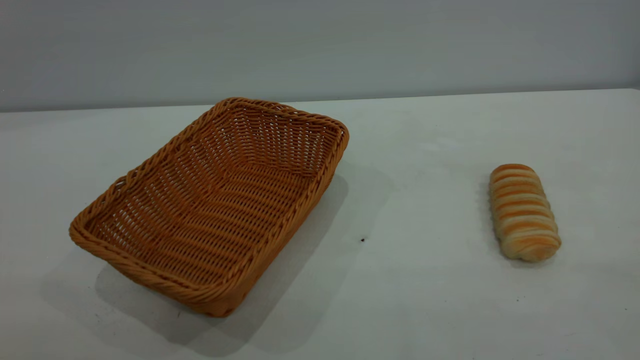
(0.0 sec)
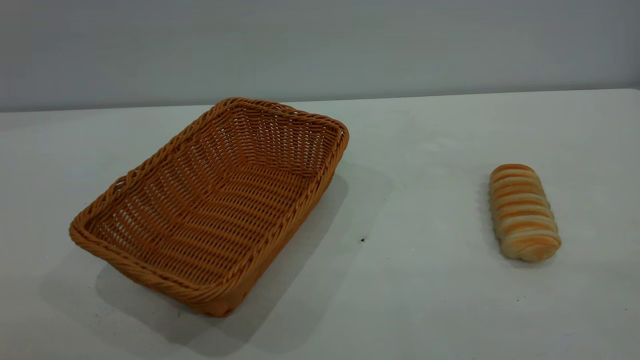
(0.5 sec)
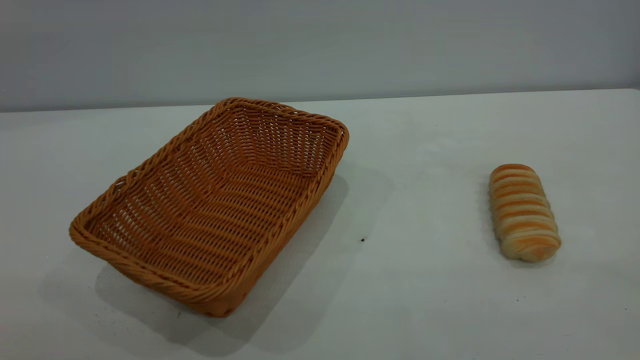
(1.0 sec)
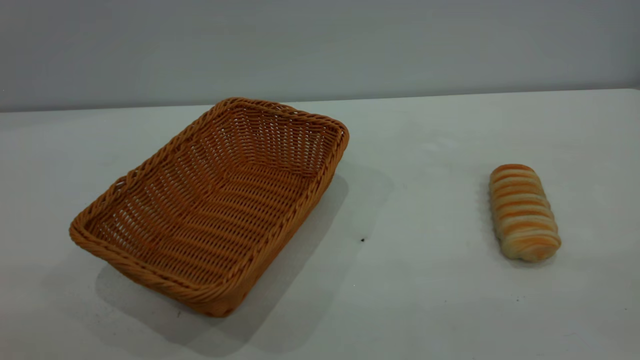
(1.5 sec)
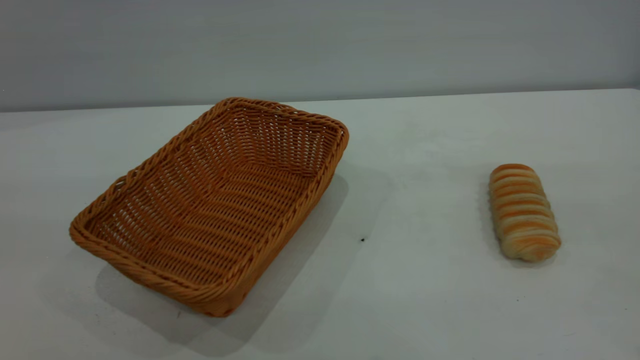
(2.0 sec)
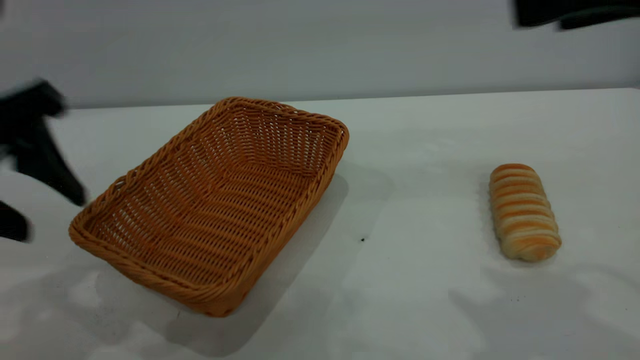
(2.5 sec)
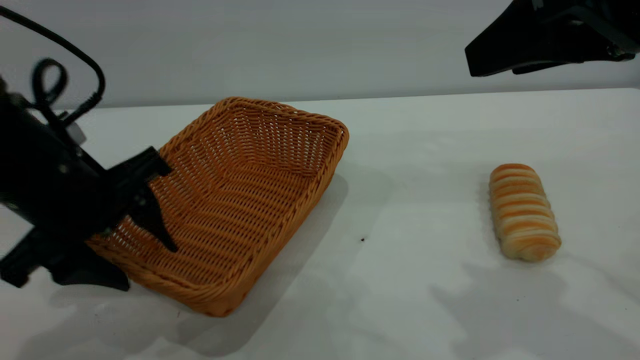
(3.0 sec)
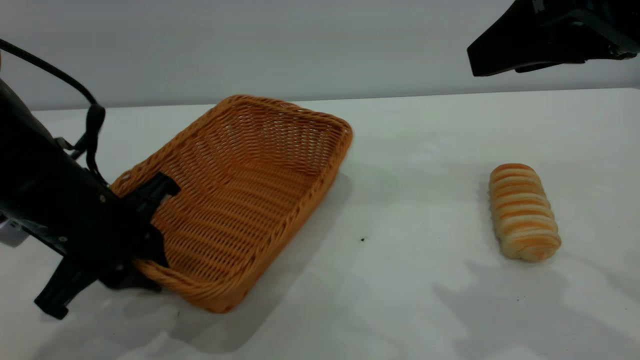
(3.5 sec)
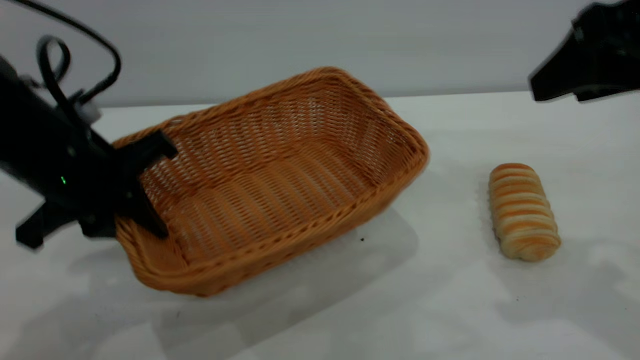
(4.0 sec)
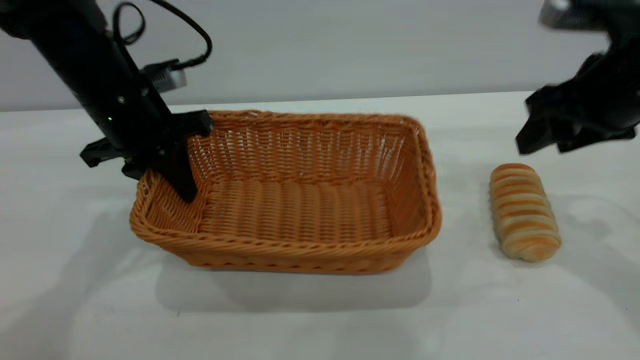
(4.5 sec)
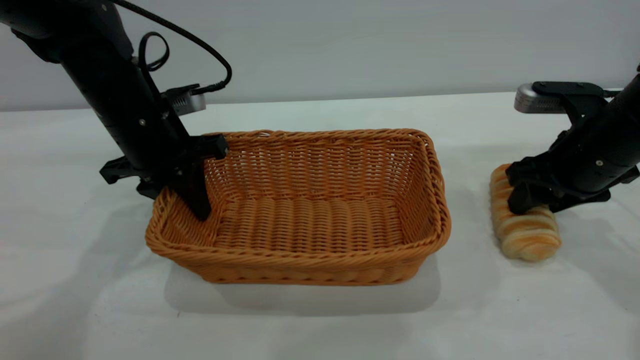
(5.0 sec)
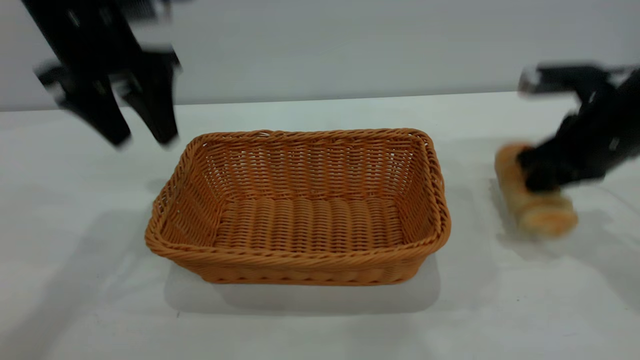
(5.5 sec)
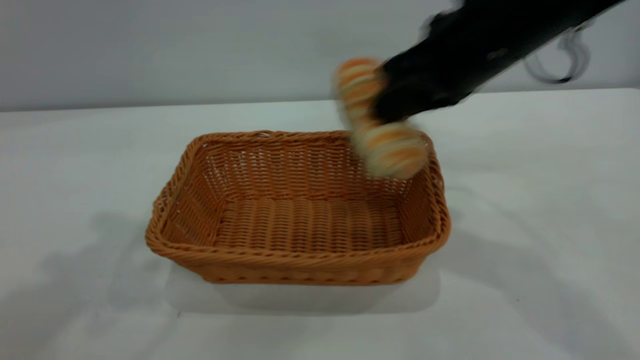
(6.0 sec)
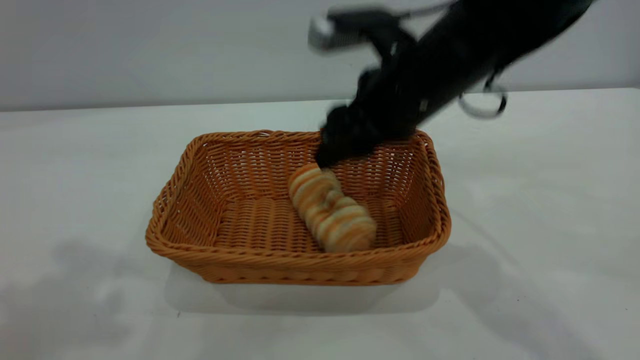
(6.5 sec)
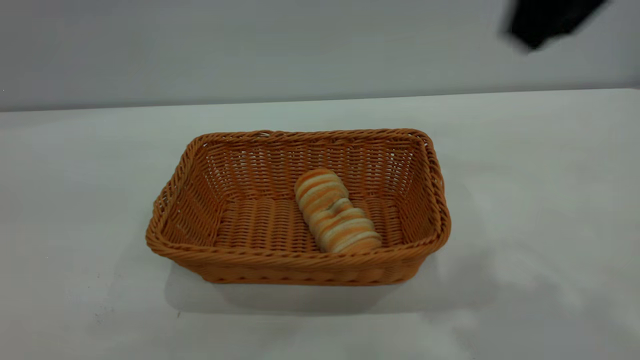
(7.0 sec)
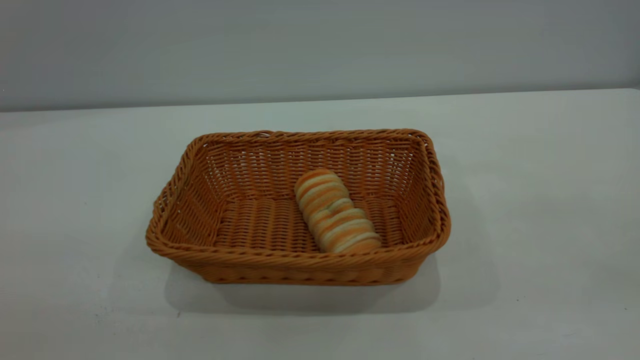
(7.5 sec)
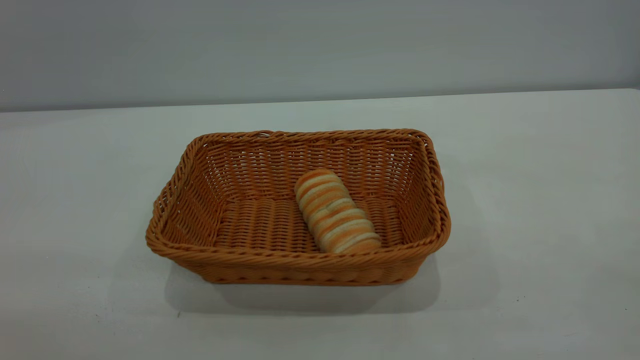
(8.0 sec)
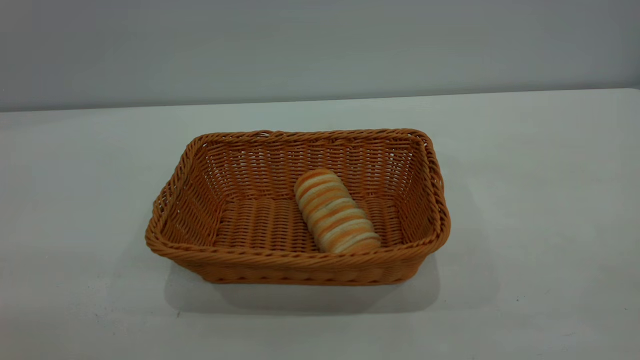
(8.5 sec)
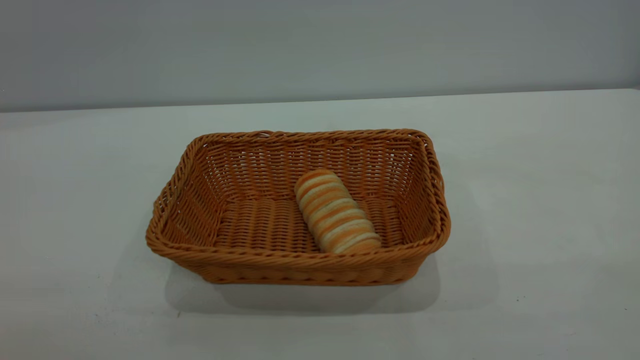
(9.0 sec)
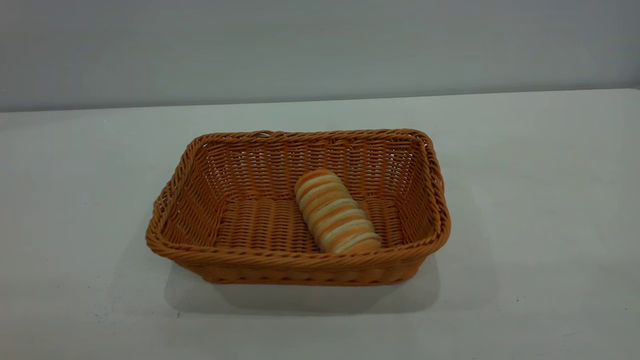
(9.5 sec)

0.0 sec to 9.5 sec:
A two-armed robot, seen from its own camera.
Task of the whole recording: One hand grasps the yellow basket and places it in the middle of the table, while the other hand picks up the long bread and puts it into the yellow basket.
Step, 0.0 sec to 5.0 sec: Move the basket to the center of view.
Step, 6.0 sec to 6.5 sec: place the bread into the basket.
2.0 sec to 4.0 sec: The left gripper is displaced downward and forward by some 25 cm, and closes up. Meanwhile the right gripper heads forward and downward, covering about 15 cm.
4.0 sec to 5.5 sec: The left gripper heads upward and forward, covering about 15 cm, and opens up; the right gripper moves downward and forward, some 15 cm, and closes its fingers.
5.5 sec to 7.5 sec: The left gripper goes approximately 35 cm backward; the right gripper travels backward and upward by about 35 cm, and opens its fingers.
